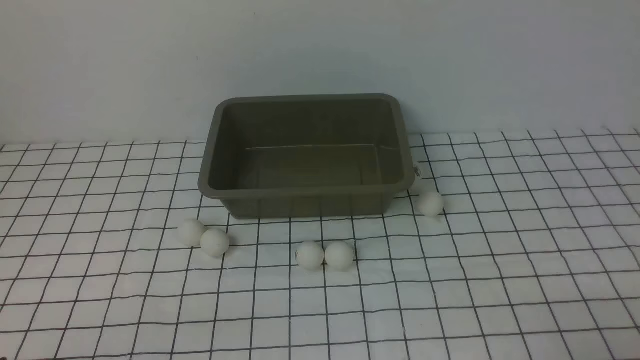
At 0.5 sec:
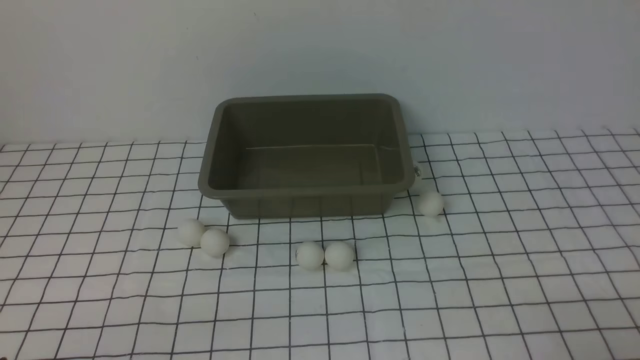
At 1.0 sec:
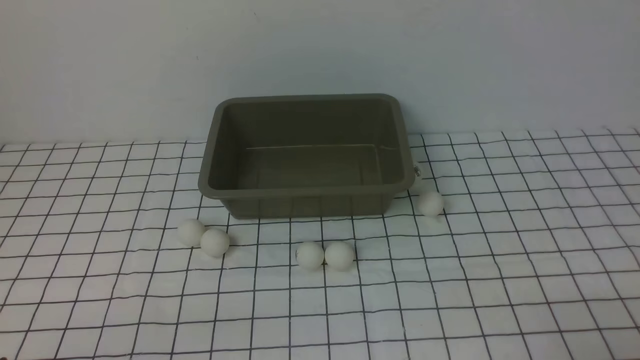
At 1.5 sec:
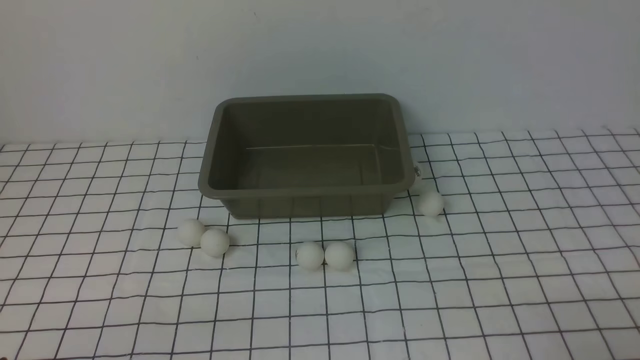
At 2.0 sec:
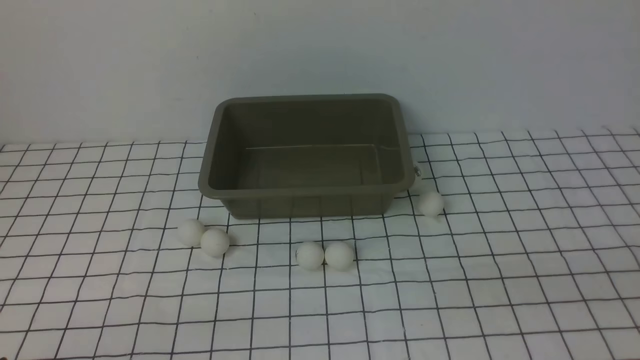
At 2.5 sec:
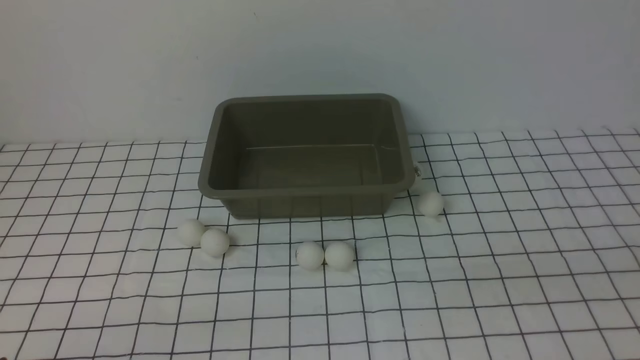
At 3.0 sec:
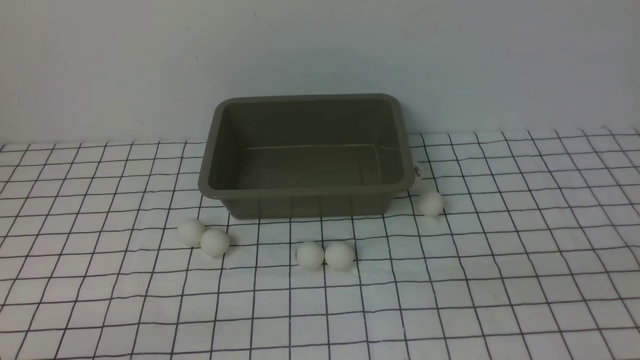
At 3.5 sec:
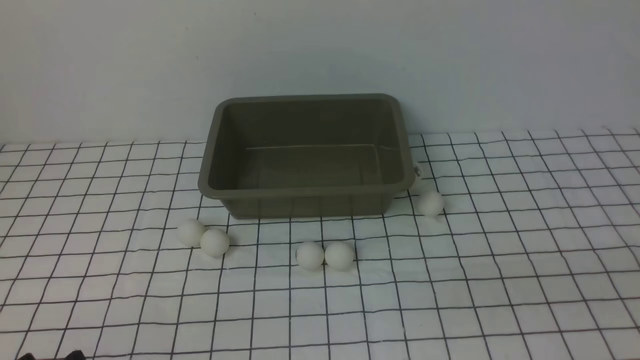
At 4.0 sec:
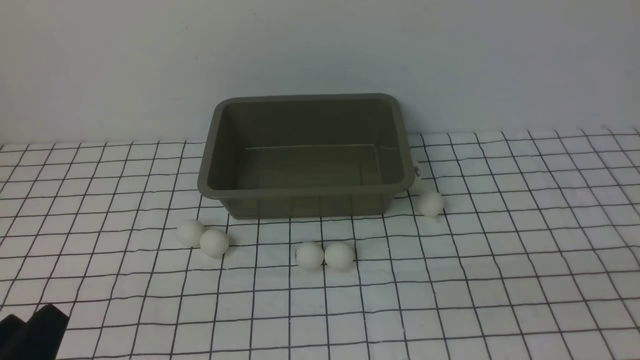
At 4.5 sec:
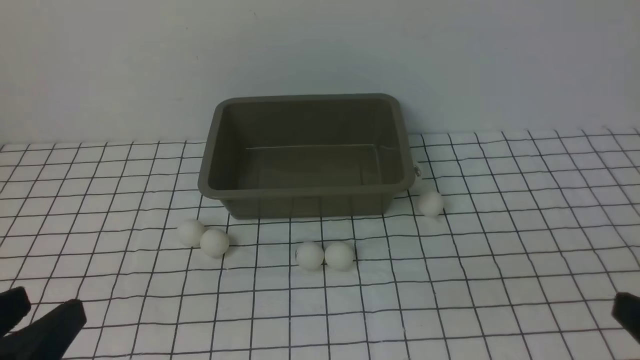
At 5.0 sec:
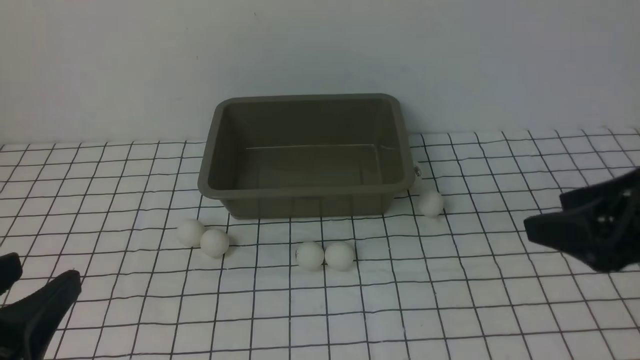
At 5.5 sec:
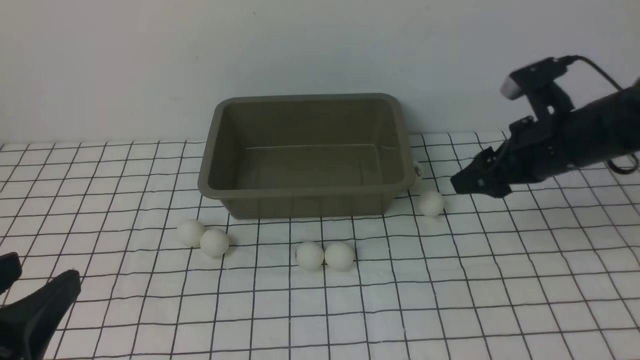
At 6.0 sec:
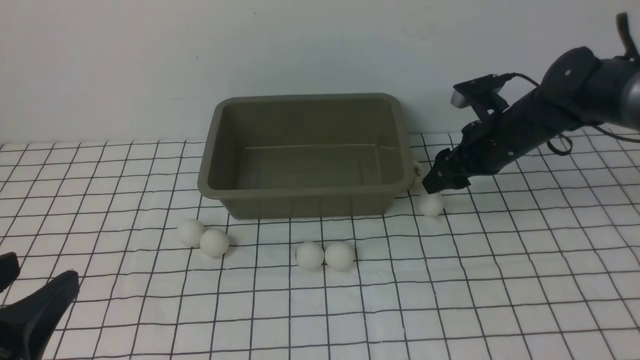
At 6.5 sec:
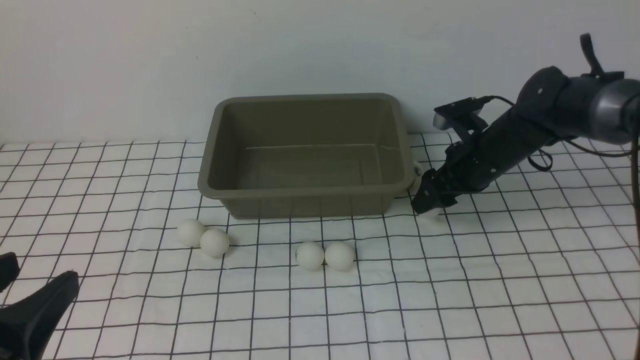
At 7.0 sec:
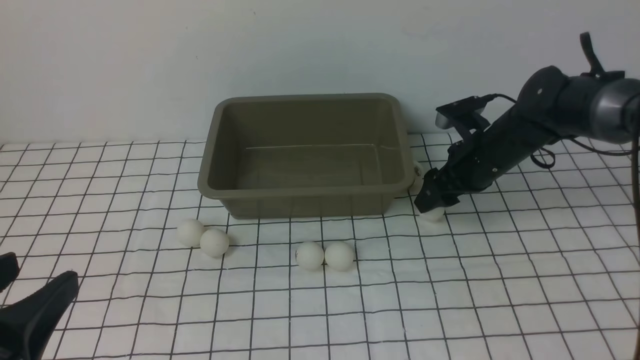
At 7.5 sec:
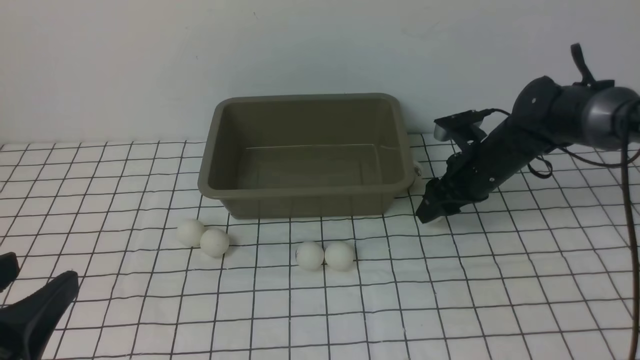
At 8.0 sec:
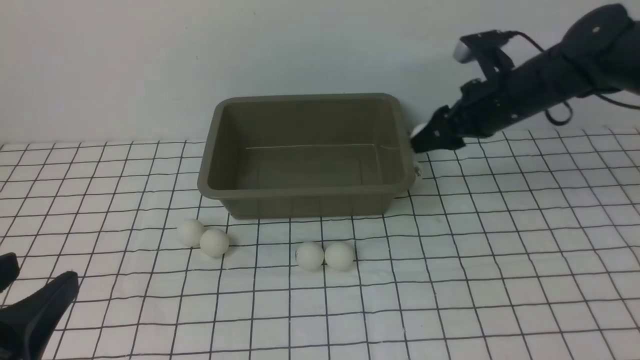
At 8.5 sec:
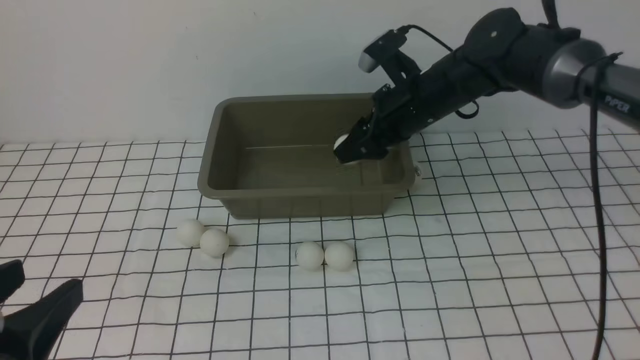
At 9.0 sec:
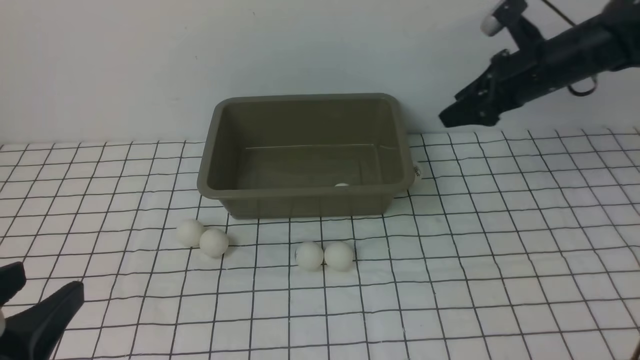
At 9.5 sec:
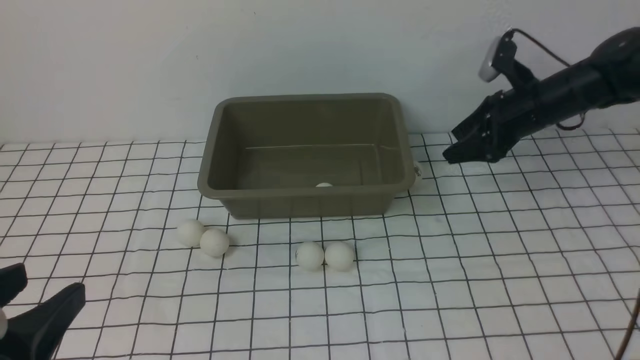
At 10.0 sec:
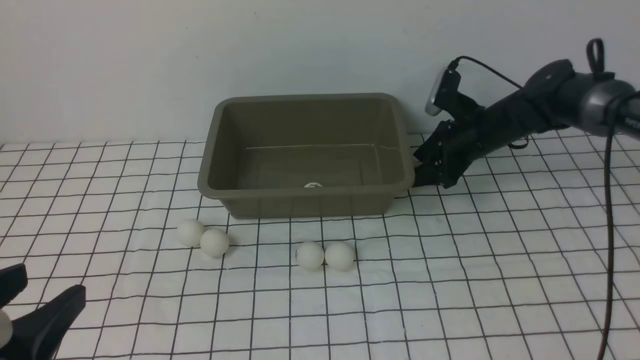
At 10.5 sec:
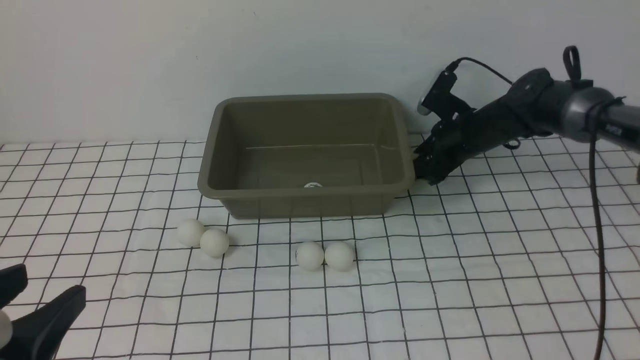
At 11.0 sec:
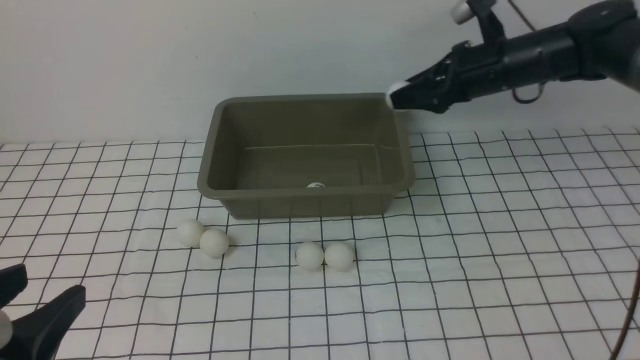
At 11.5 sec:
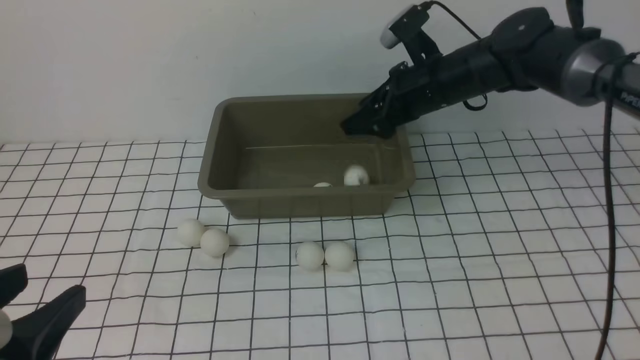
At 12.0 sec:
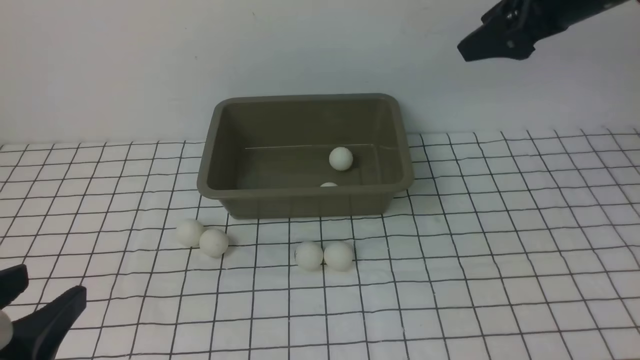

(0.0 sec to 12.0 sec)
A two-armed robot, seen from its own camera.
Step, 0.0 sec - 7.5 sec: use the right arm to clamp the table tennis ball closest to it.
Step, 8.0 sec - 8.5 sec: use the right arm to put the table tennis ball into the box.
Step, 9.0 sec - 10.5 sec: use the right arm to clamp the table tennis ball closest to it.
Step, 11.0 sec - 11.5 sec: use the right arm to put the table tennis ball into the box.
2.0 sec - 4.0 sec: The left gripper is displaced upward by about 5 cm.
4.0 sec - 6.0 sec: The left gripper travels upward by roughly 5 cm, while the right gripper shifts some 40 cm forward.
6.0 sec - 8.0 sec: The right gripper shifts approximately 5 cm upward, and closes its fingers.
8.0 sec - 10.0 sec: The right gripper swings left and right, about 15 cm each way, with 2 reversals, and opens.
10.0 sec - 12.0 sec: The right gripper moves upward, some 25 cm, and closes, then reopens.

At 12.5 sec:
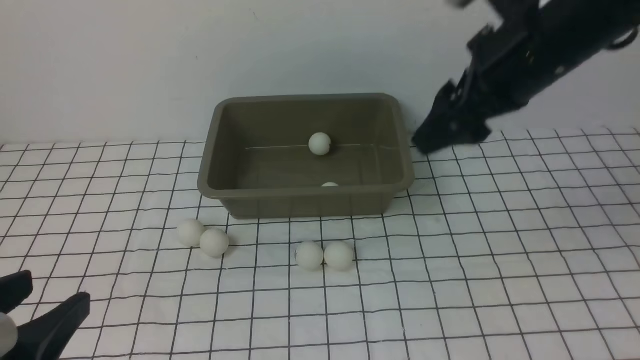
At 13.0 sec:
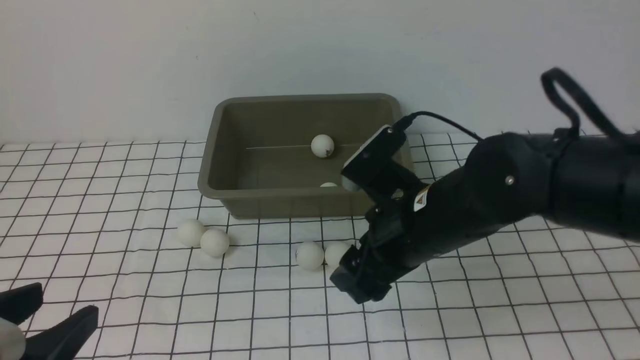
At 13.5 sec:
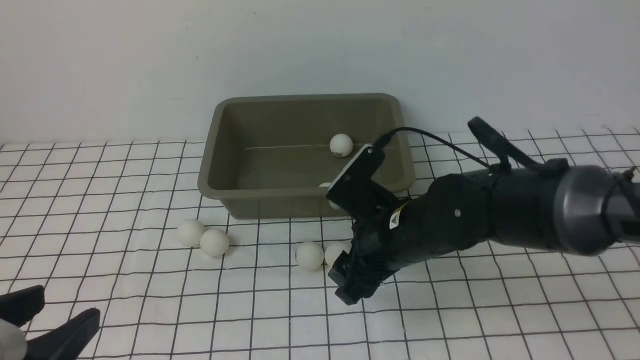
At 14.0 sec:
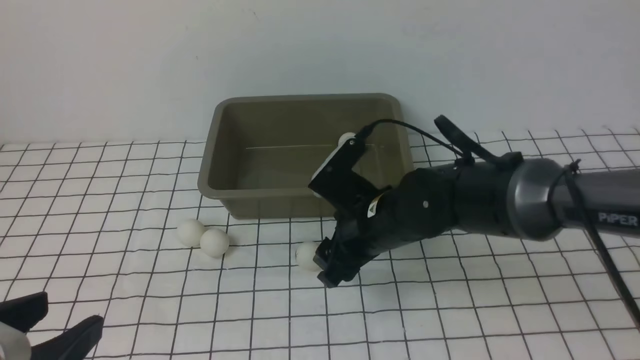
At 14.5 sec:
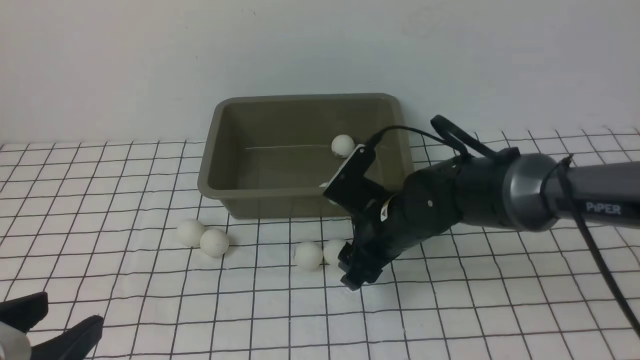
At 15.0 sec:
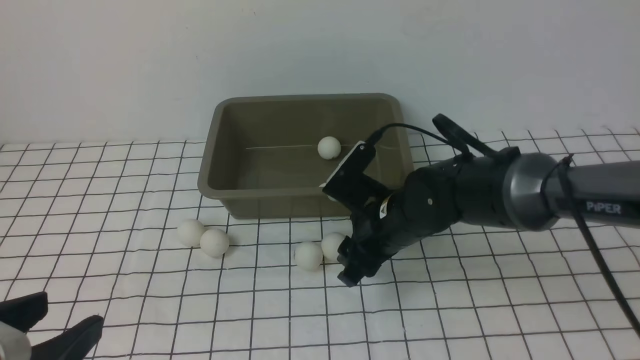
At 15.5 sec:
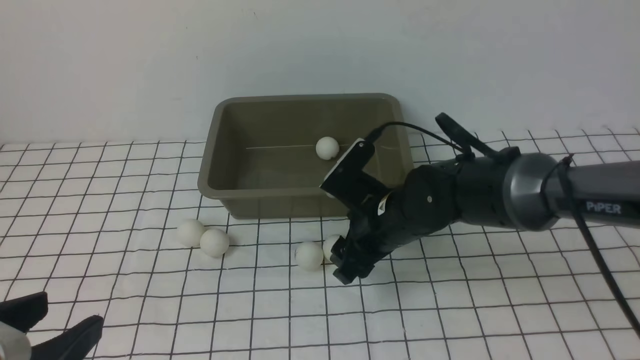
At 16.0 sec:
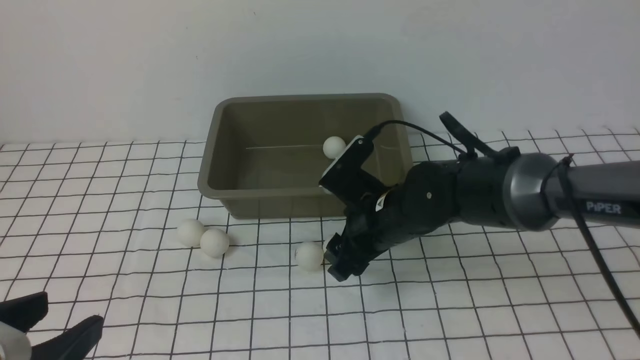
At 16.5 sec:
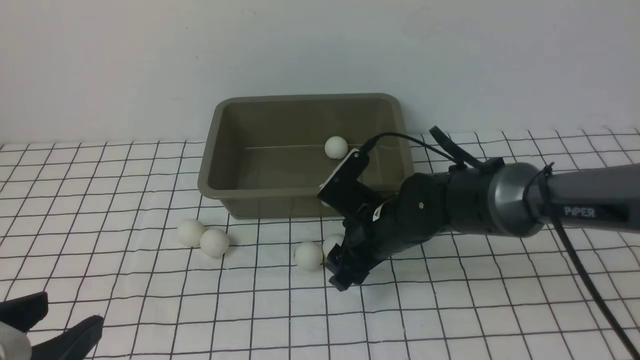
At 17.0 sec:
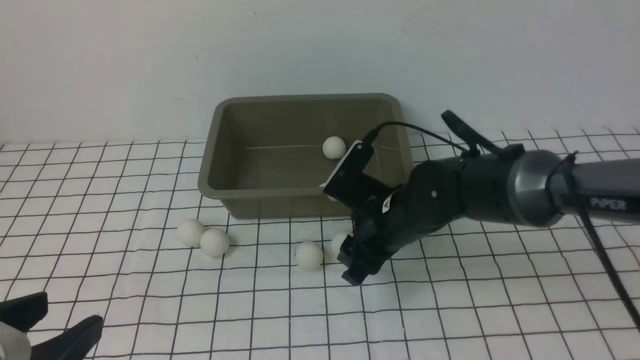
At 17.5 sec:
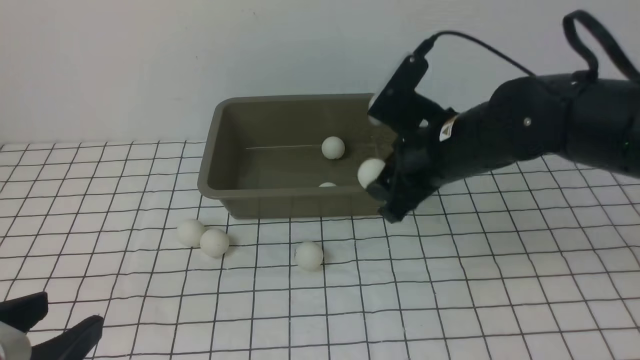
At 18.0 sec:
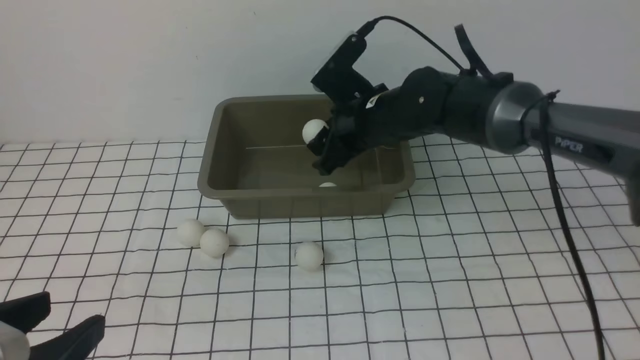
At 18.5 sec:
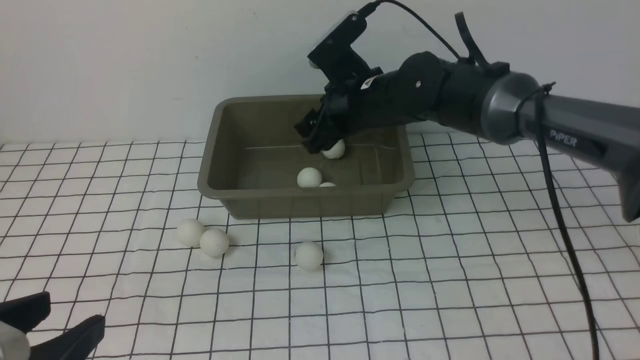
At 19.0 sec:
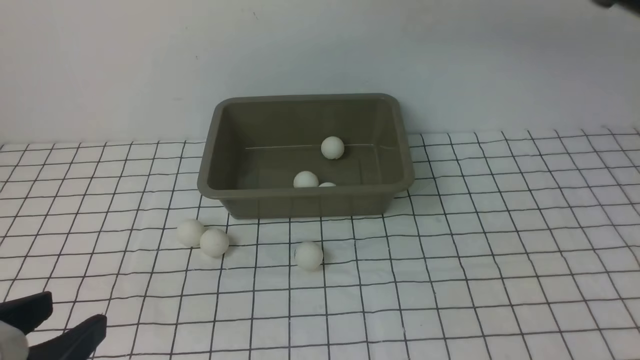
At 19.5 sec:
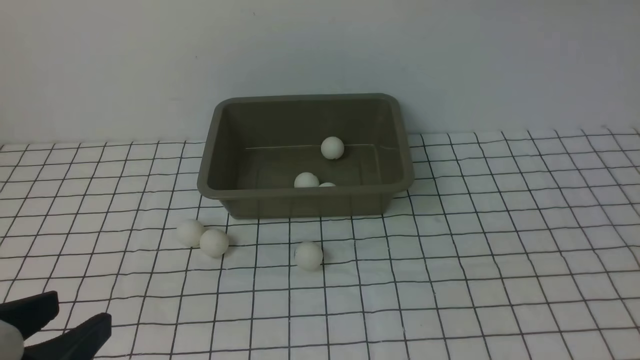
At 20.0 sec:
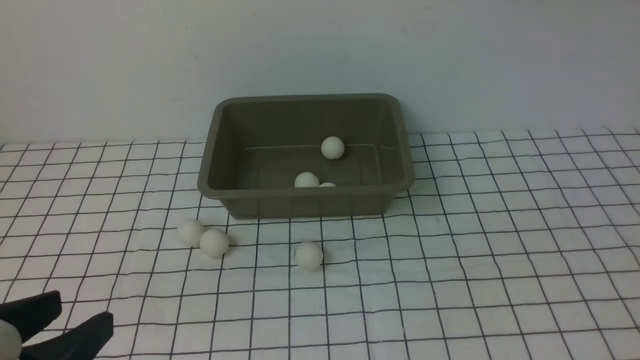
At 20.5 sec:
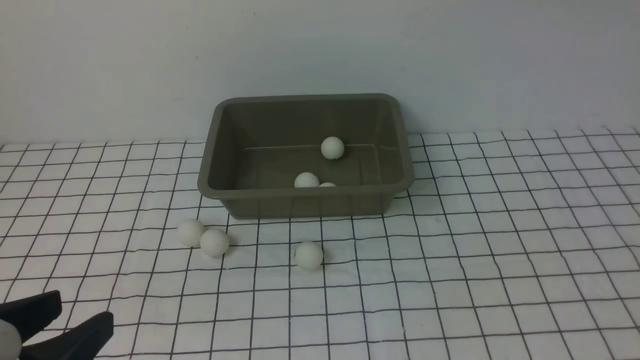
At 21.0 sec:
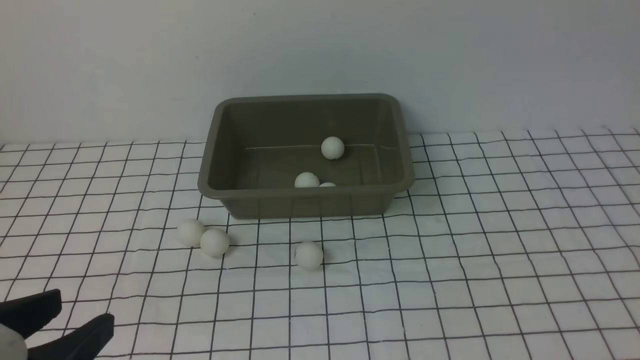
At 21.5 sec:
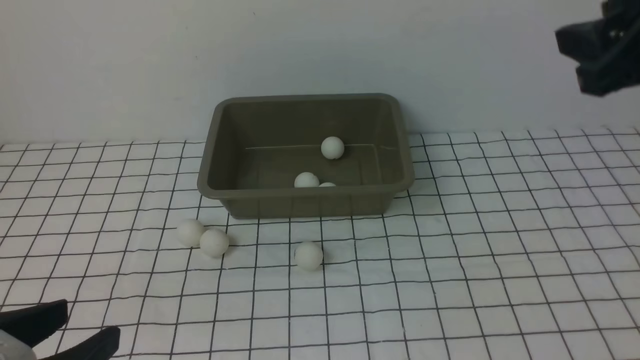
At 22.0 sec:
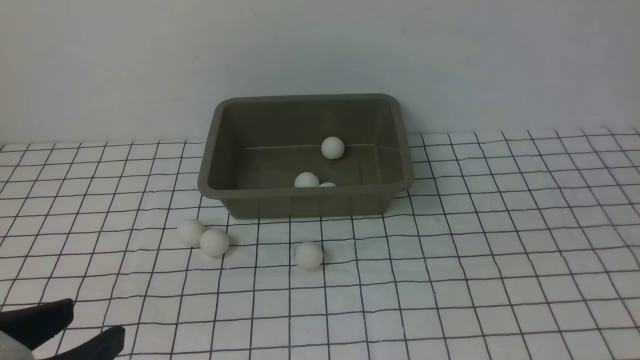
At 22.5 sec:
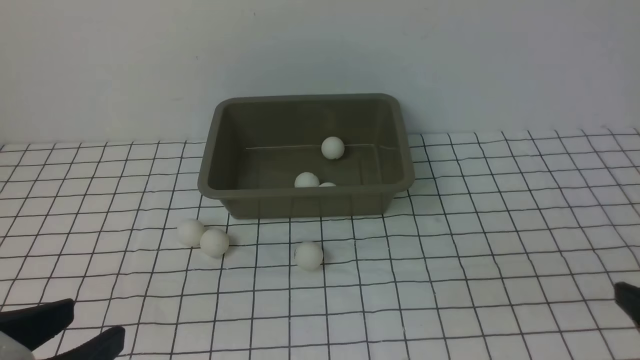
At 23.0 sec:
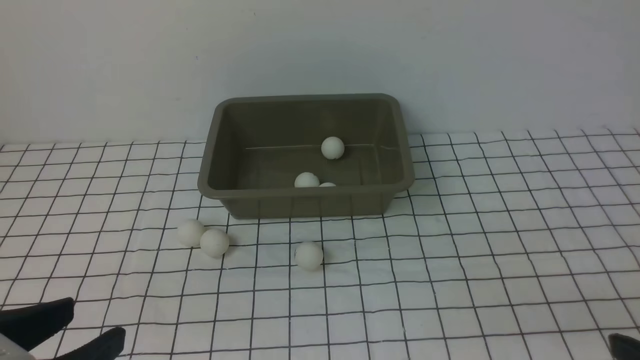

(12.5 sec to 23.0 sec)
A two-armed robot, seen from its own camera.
Step, 12.5 sec - 17.0 sec: use the right arm to clamp the table tennis ball closest to it.
Step, 17.5 sec - 18.5 sec: use the right arm to put the table tennis ball into the box.
12.5 sec - 14.5 sec: The right gripper moves downward and to the left, roughly 25 cm, and closes.
14.5 sec - 16.5 sec: The grippers move only a little.
16.5 sec - 19.0 sec: The right gripper heads upward, covering some 25 cm.
